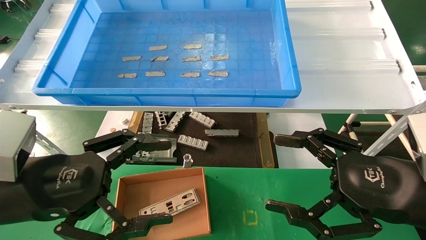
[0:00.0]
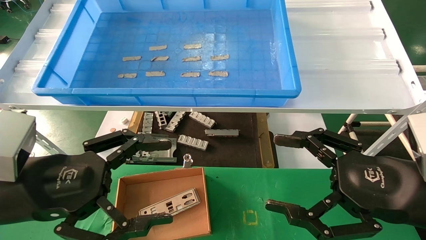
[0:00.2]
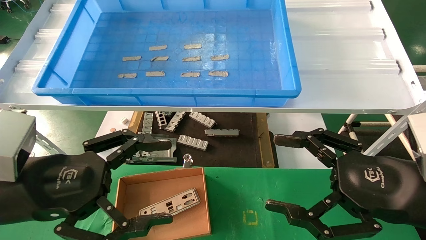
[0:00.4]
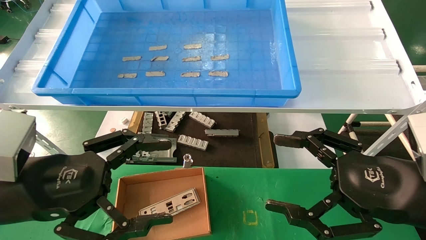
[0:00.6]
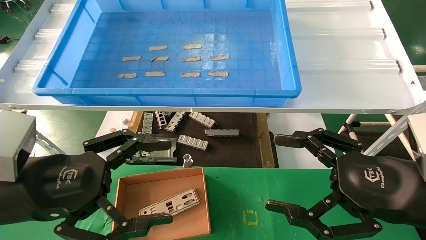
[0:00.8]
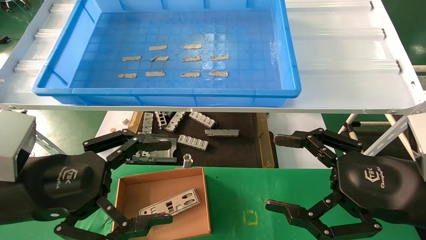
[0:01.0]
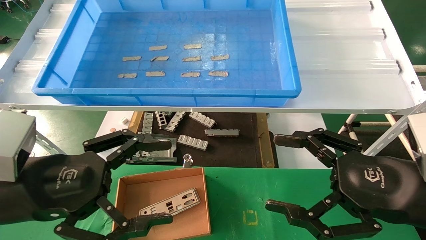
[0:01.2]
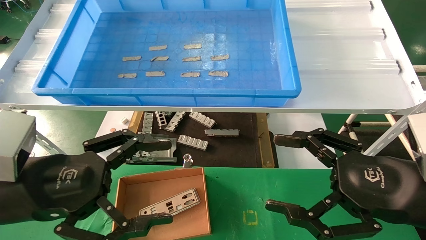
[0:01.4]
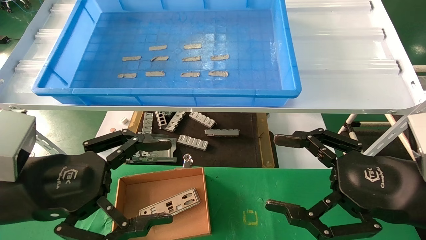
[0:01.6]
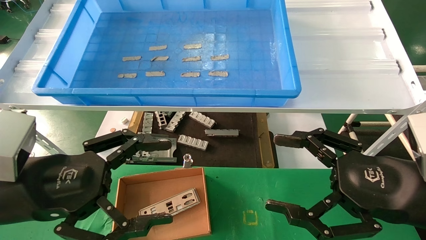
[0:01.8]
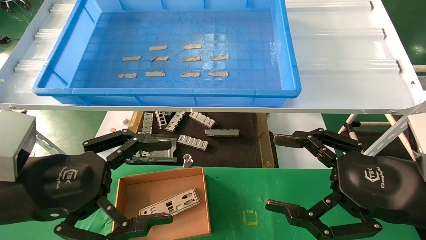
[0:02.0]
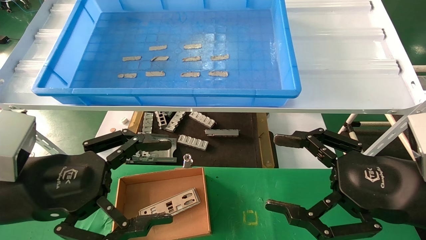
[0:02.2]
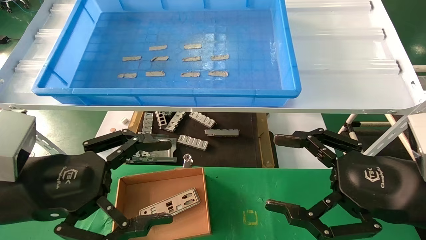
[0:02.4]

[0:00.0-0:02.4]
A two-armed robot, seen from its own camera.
Task of the whole recording: pick up the parts on the tray and put them in the cardboard box.
0:00.0 to 0:02.4: Both grippers stay put.

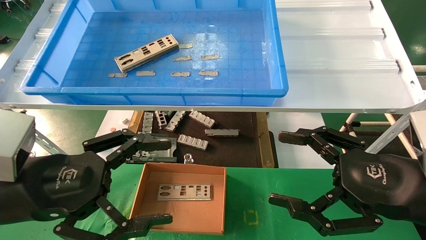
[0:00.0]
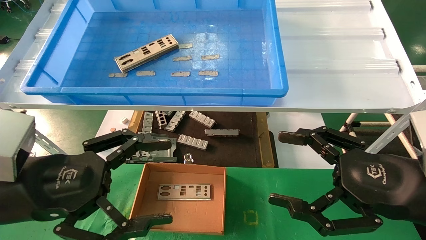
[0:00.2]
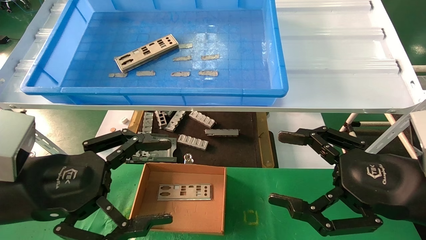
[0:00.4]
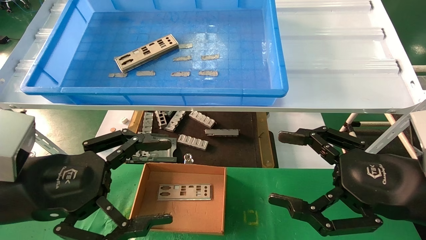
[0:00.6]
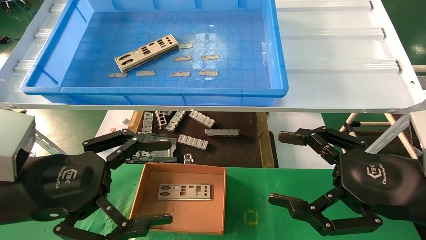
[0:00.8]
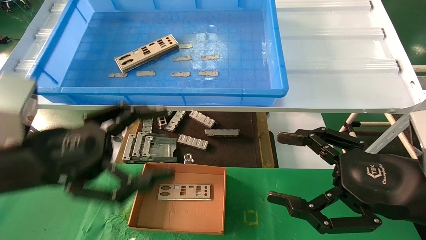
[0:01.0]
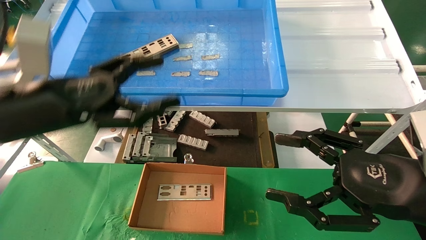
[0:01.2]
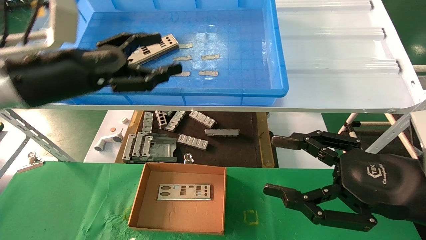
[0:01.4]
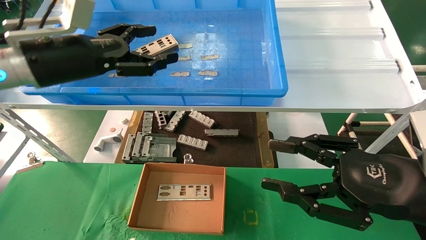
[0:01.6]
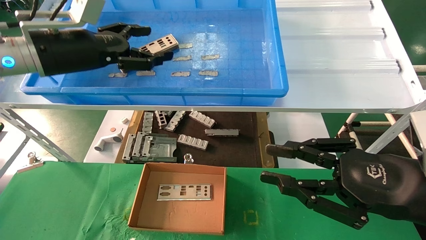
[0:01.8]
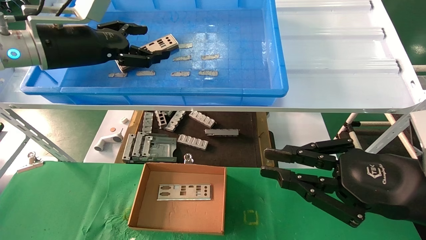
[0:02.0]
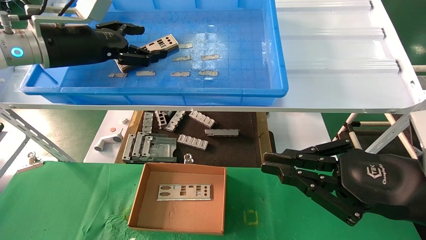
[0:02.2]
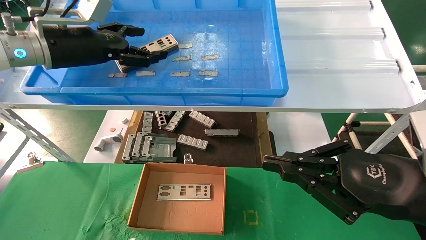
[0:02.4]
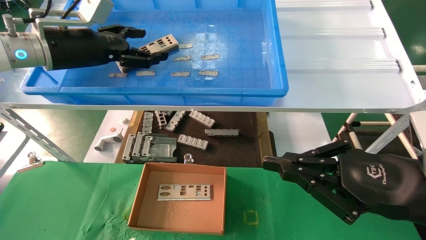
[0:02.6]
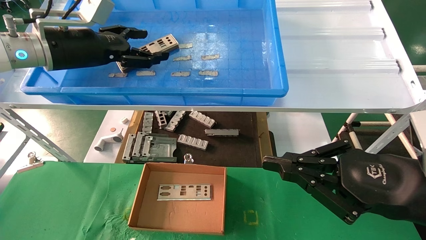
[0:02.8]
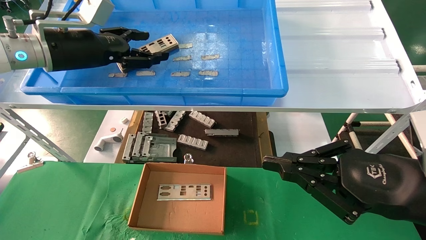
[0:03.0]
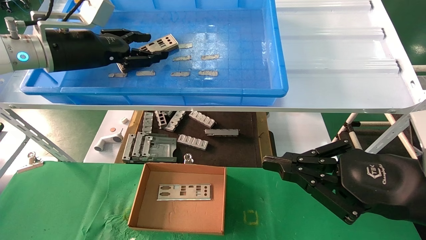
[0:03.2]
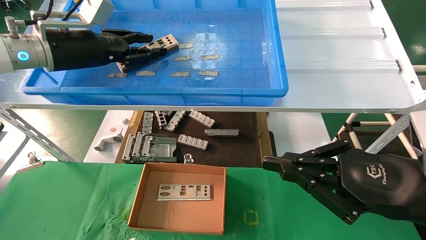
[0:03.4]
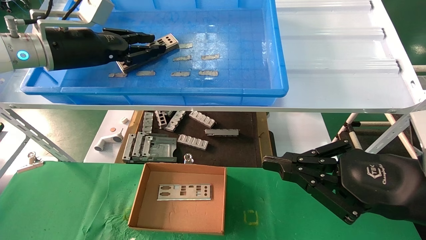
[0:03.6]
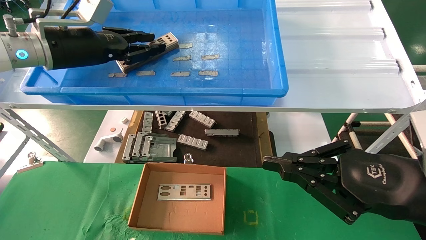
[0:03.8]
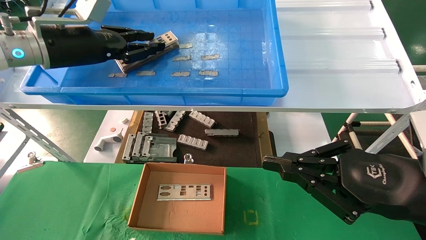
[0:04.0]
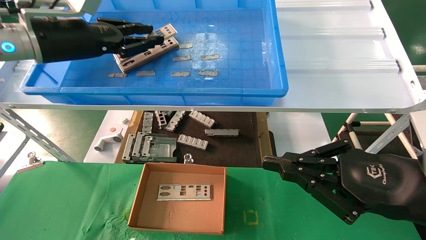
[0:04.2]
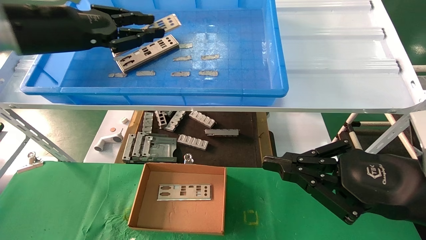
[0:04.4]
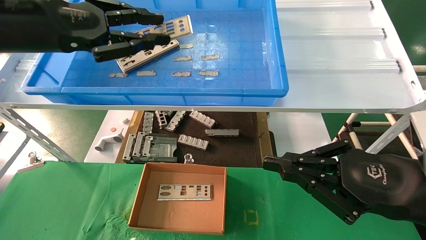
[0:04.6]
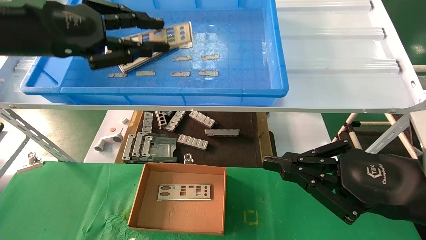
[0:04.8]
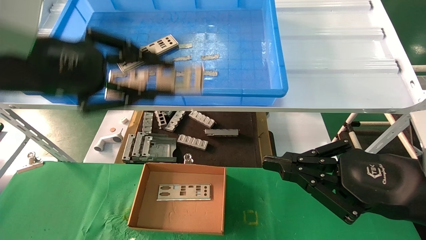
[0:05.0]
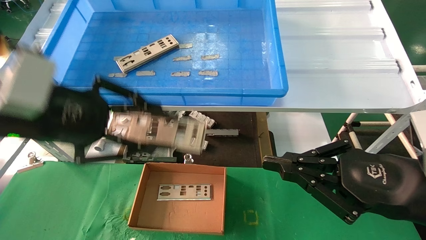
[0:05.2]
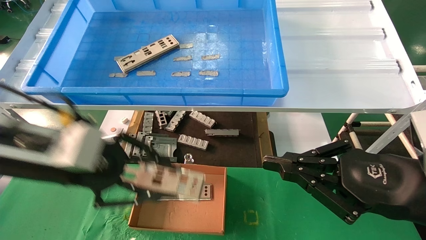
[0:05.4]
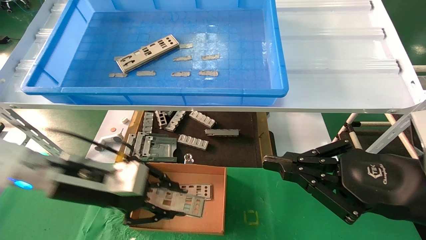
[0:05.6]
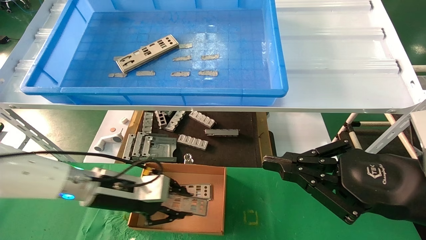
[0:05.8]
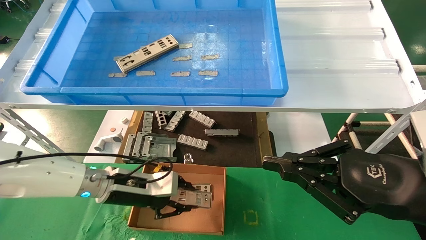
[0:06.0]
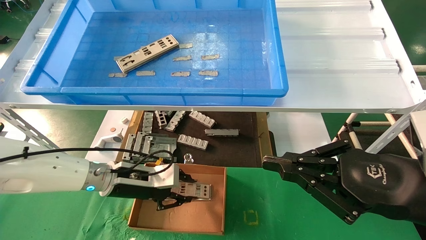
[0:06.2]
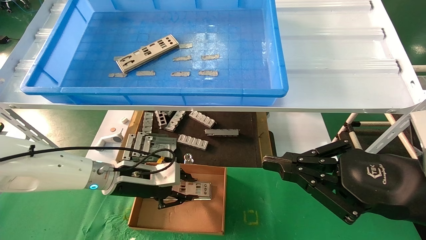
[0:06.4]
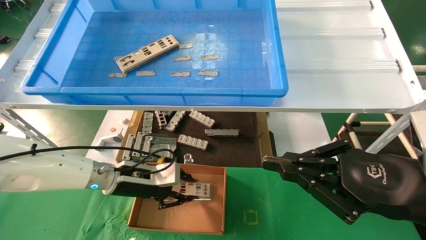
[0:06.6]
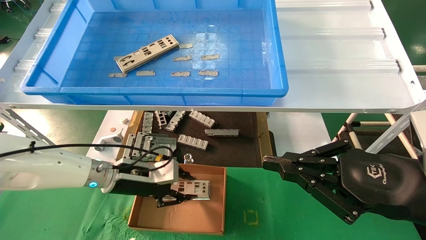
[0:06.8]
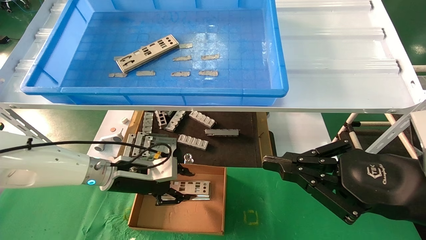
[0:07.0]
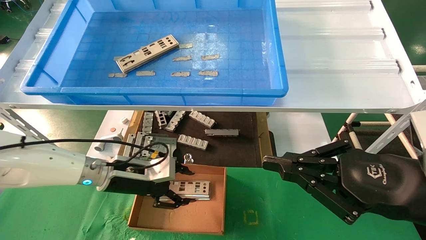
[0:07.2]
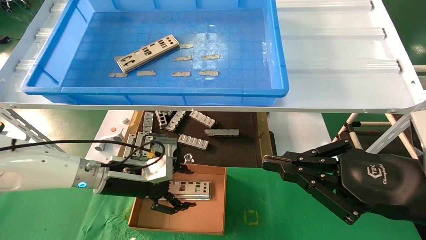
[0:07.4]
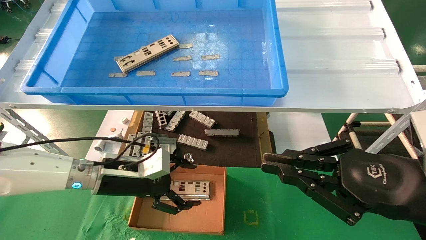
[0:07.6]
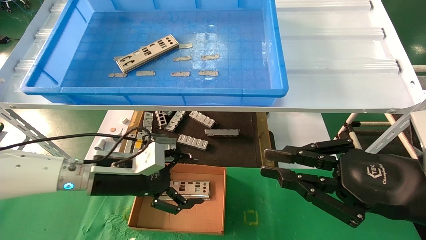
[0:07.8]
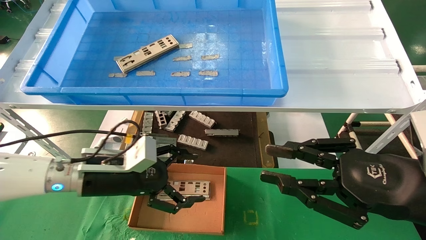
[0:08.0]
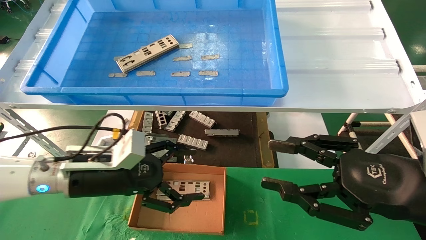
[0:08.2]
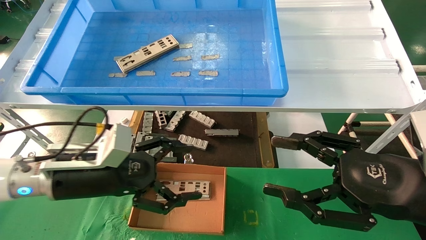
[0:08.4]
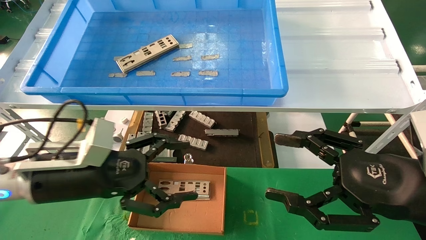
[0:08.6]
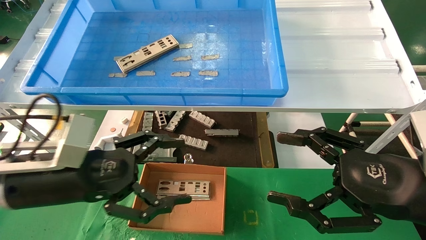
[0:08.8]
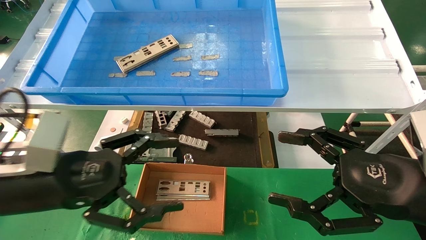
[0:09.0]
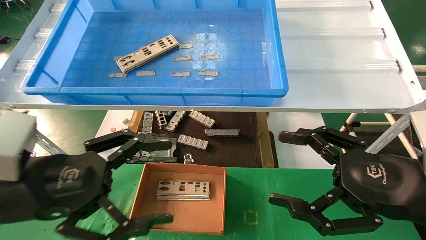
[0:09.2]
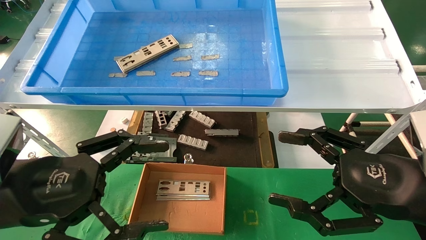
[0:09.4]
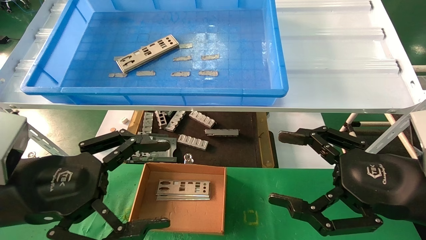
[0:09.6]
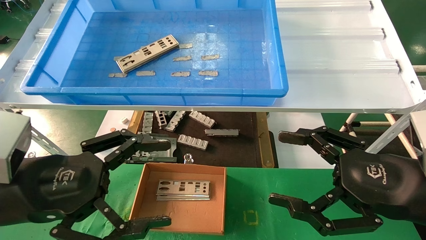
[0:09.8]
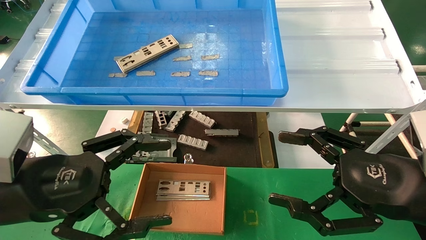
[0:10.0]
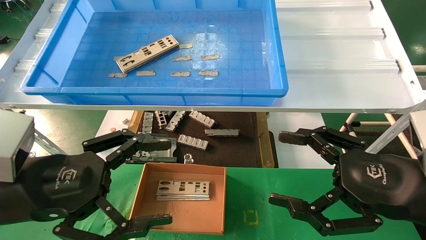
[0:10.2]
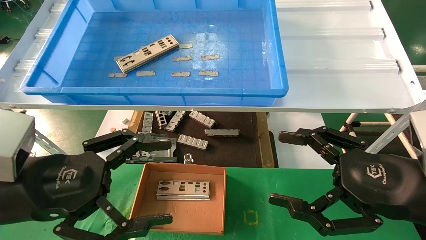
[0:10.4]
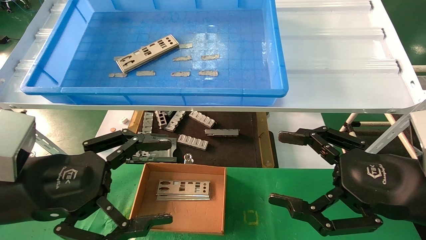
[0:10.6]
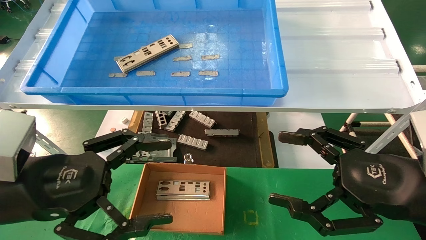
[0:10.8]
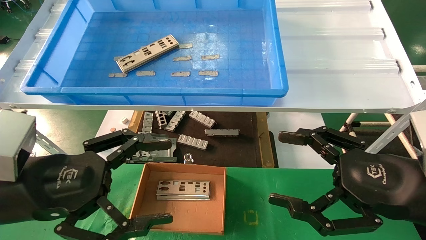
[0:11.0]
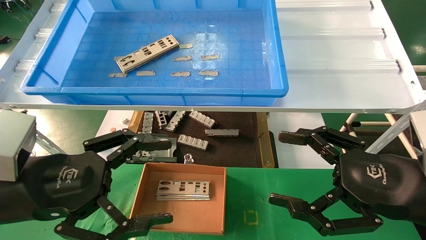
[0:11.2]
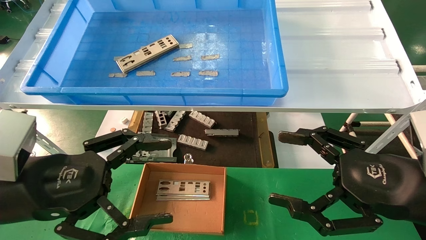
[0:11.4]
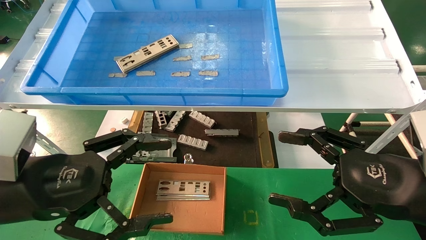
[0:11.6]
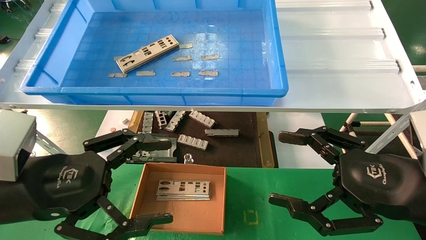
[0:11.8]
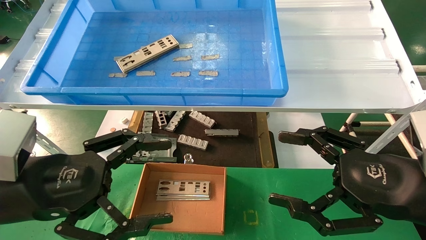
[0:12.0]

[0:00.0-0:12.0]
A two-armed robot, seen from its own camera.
Task of the whole recording: pick up the parts on the tray and put them in the cardboard box.
Step, 0:01.2 to 0:03.8: Pick up the IO bracket from the container box.
Step, 0:04.0 to 0:07.0: Place the IO bracket into the ingredient slot.
0:00.0 to 0:01.6: The left gripper moves forward and upward, about 20 cm, while the right gripper closes.
0:01.6 to 0:03.0: The left gripper shifts by approximately 5 cm; the right gripper closes.
0:03.0 to 0:04.4: The left gripper shifts approximately 5 cm backward, and closes its fingers.
0:04.4 to 0:06.0: The left gripper moves downward, roughly 30 cm.
0:06.0 to 0:07.6: The left gripper opens its fingers.
0:07.6 to 0:09.0: The left gripper is displaced backward and upward by some 15 cm, while the right gripper opens up.
0:09.0 to 0:10.4: The grippers move only a little.
0:10.4 to 0:12.0: Both grippers stay put.

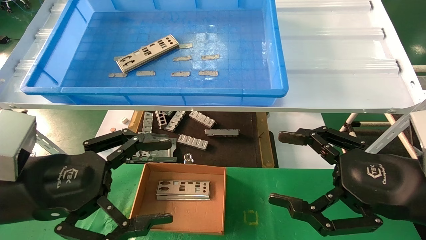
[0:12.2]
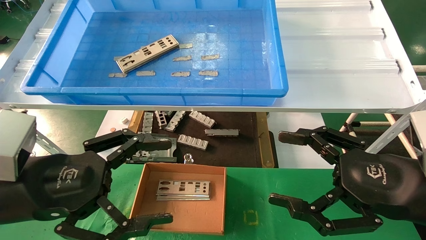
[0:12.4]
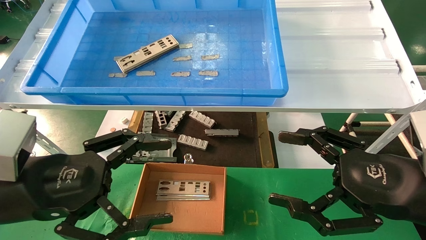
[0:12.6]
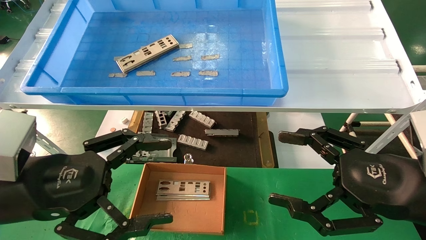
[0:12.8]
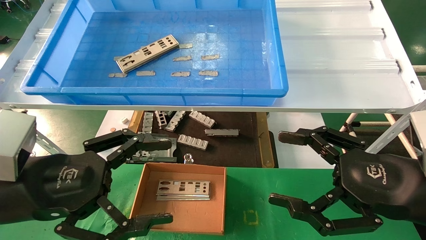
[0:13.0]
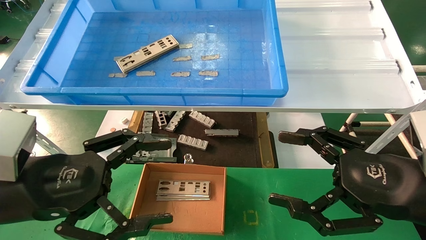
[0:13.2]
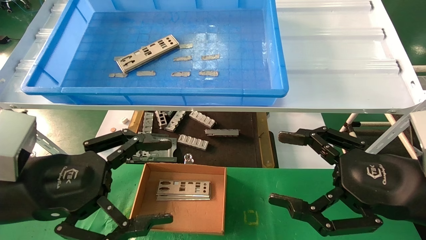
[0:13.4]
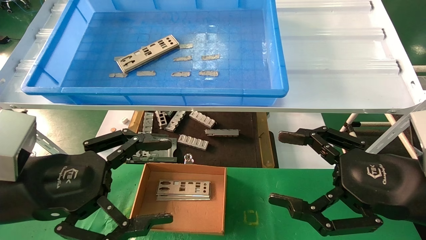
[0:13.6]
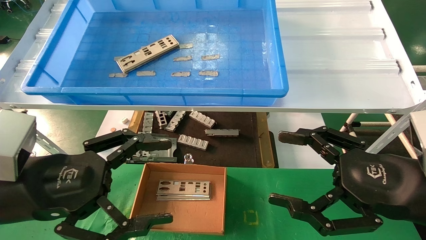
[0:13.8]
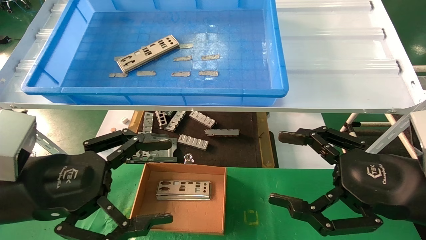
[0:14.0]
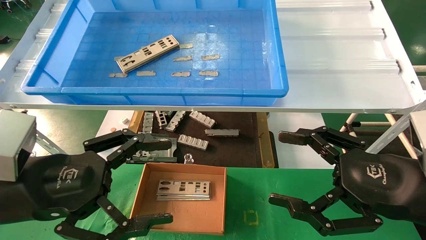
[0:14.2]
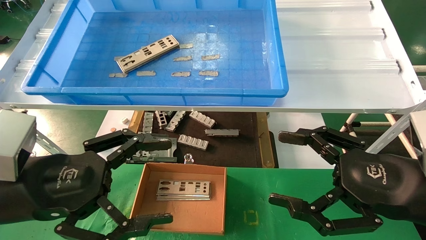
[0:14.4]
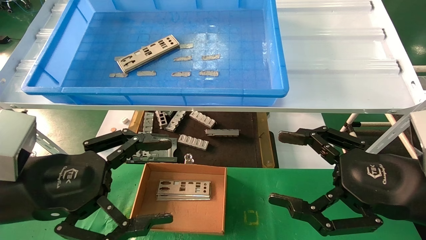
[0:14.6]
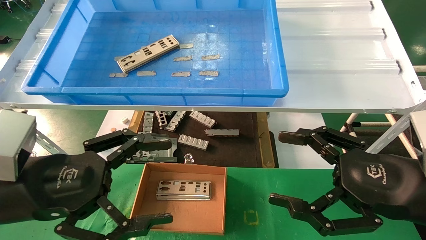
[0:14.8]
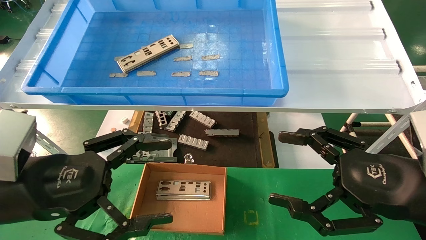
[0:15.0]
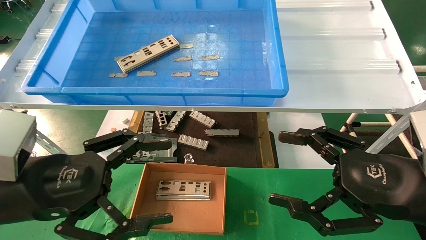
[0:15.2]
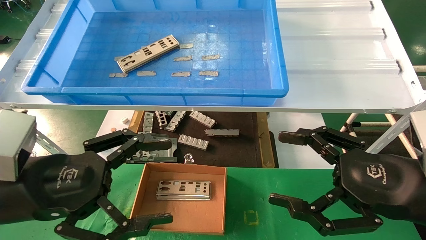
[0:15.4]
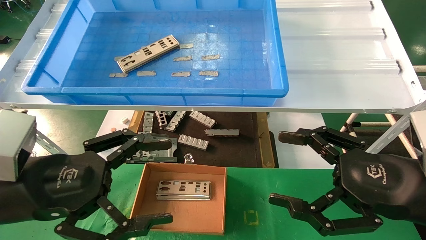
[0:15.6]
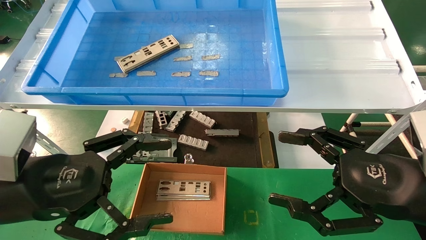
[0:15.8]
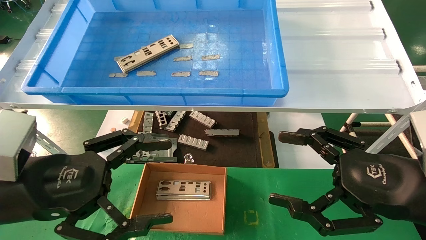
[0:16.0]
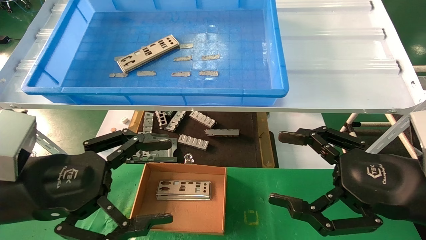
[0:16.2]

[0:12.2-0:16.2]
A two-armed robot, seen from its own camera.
Task of the whole recording: pick up the parts on the tray and put them in the cardboard box.
0:12.2 to 0:16.2: The two grippers keep their place.
